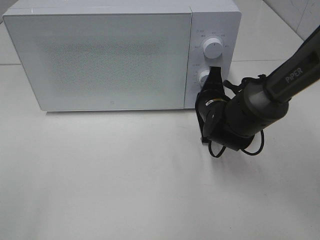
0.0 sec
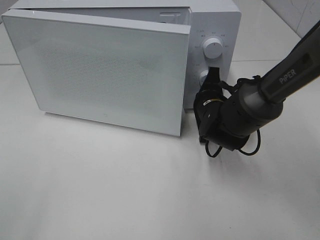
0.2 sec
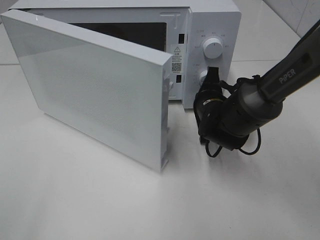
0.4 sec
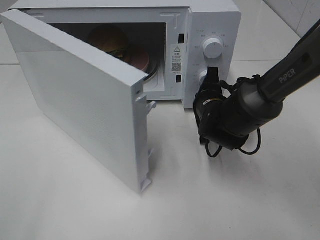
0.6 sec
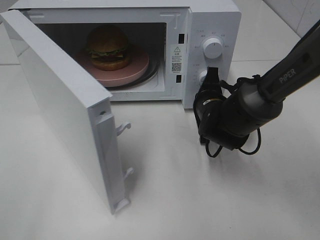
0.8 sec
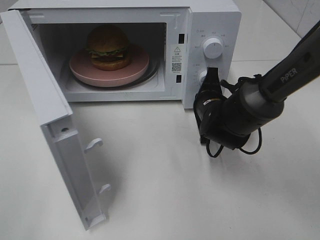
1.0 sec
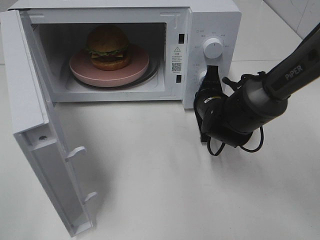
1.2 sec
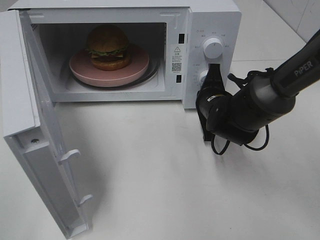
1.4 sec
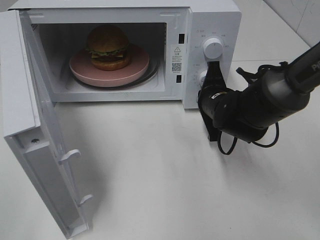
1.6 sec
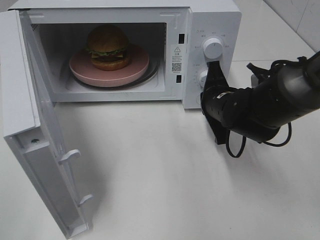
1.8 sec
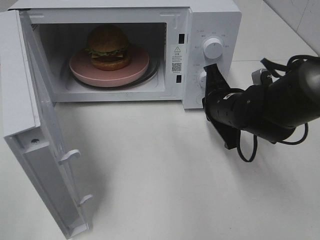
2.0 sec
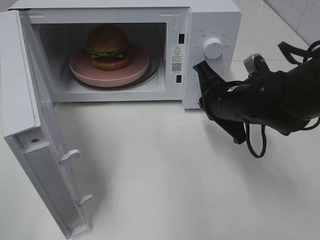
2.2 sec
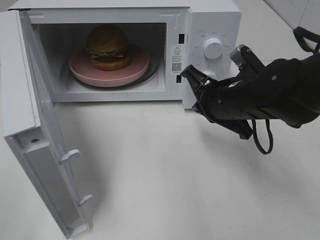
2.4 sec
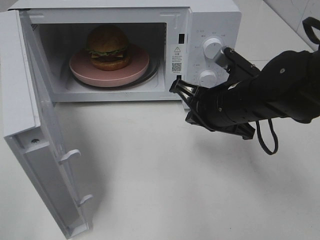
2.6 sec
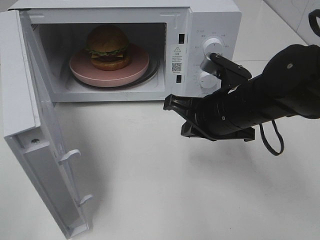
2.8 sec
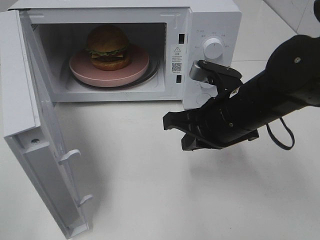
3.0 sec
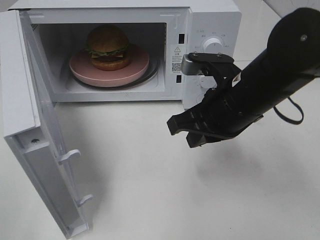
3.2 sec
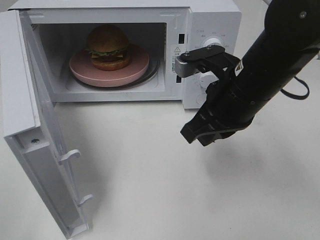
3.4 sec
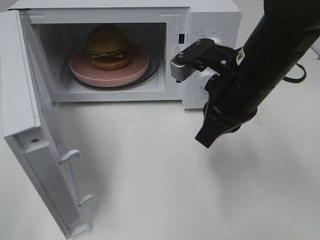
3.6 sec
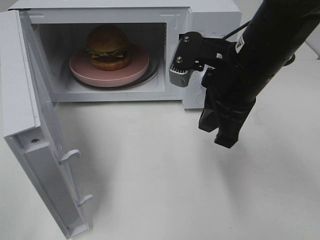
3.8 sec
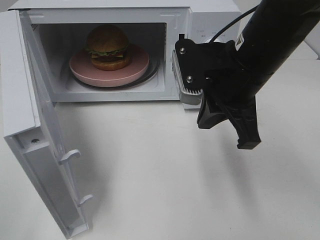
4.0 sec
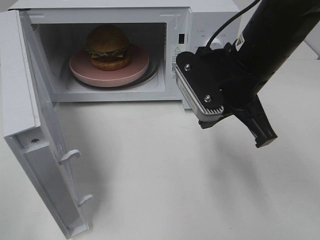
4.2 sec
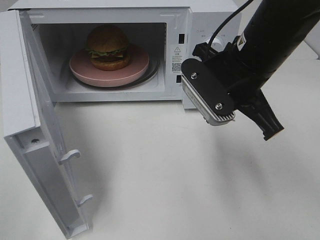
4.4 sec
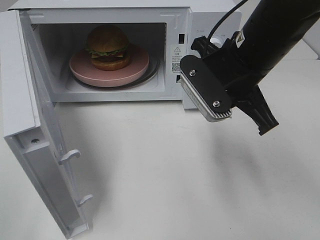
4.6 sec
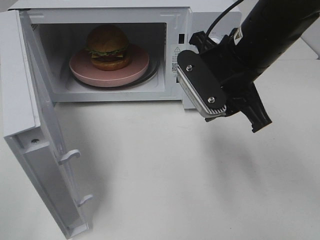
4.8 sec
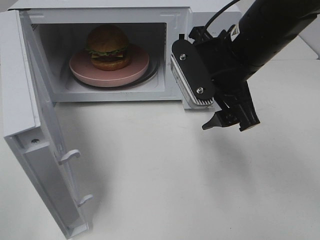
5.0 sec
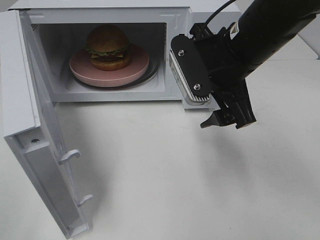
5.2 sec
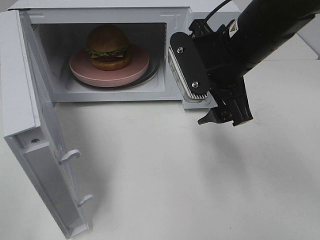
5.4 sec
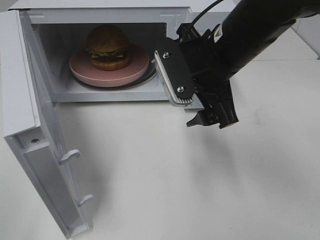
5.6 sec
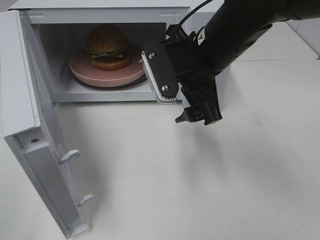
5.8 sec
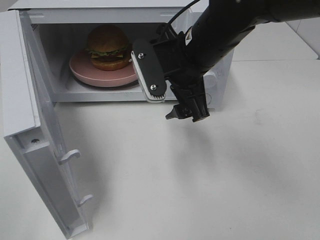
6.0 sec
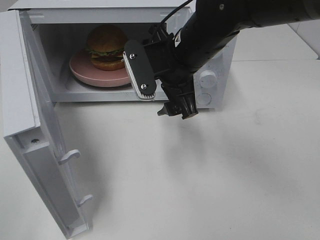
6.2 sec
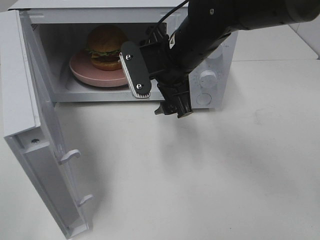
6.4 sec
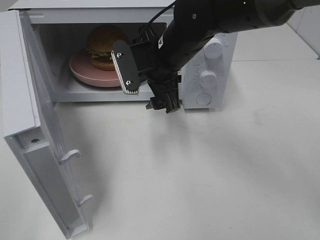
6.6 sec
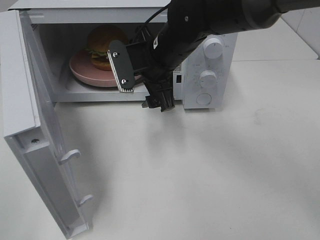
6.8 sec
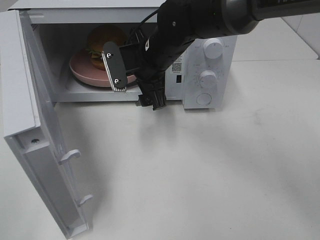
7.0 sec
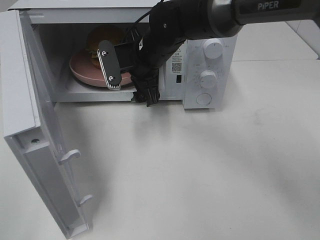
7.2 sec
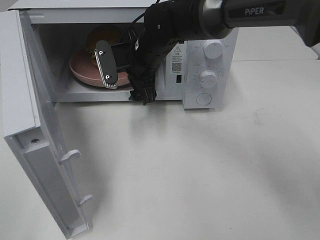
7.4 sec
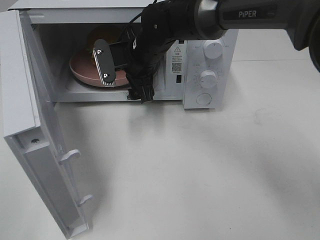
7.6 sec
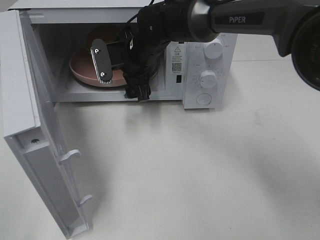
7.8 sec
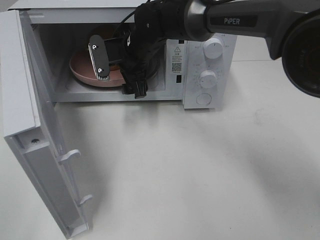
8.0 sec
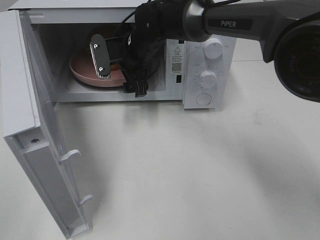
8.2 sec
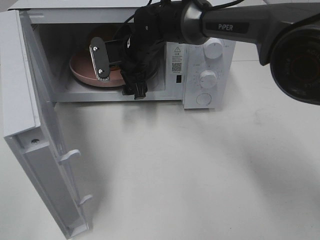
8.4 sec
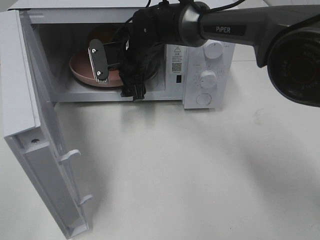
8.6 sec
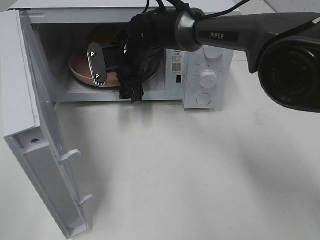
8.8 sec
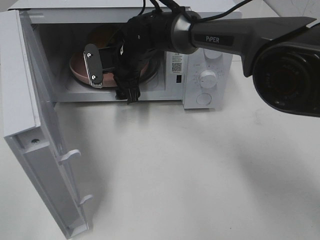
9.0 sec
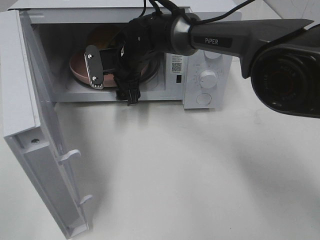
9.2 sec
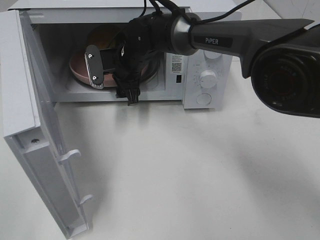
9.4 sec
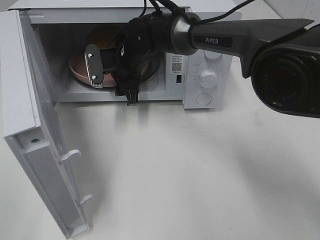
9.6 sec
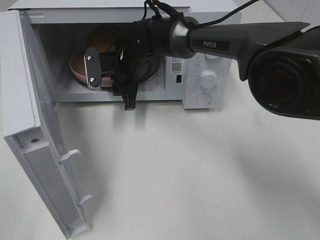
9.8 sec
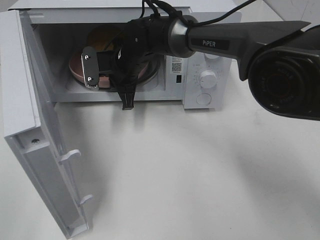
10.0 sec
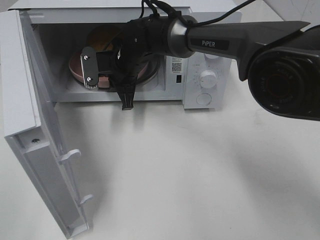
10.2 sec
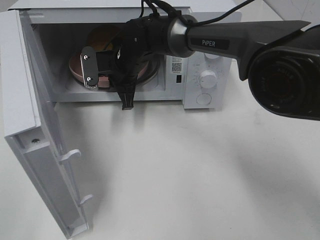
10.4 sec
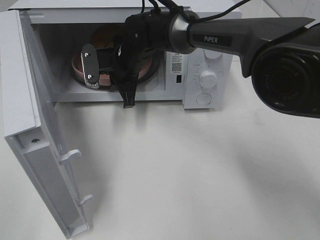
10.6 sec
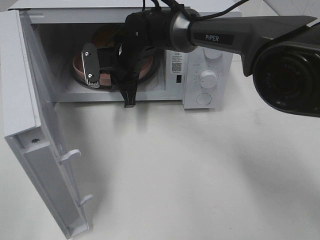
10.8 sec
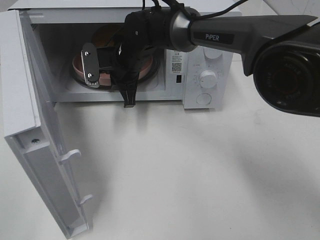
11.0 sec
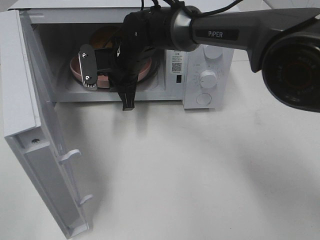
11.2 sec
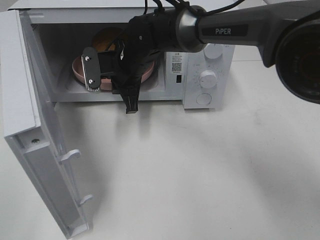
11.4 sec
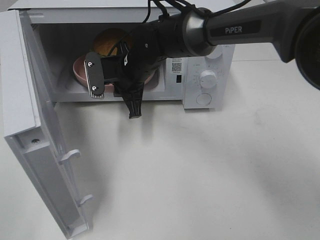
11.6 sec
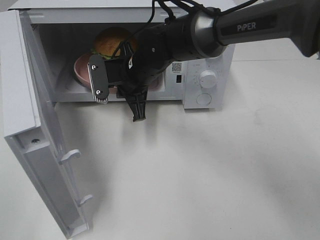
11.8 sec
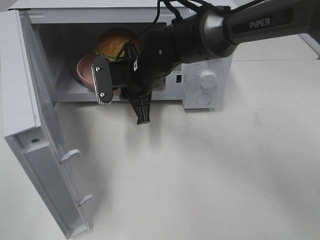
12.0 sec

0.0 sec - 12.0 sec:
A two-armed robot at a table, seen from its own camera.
Task of the whole recording: Heat the burger.
Step, 1.8 sec - 10.0 sec: Right hand: grab the plate with the hamburger.
1.6 sec - 3.0 sec: The right gripper goes roughly 10 cm backward and upward.
3.0 sec - 4.4 sec: The right gripper moves upward, approximately 5 cm.
4.4 sec - 6.0 sec: The right gripper travels to the left by some 5 cm, and opens.
6.0 sec - 7.6 sec: The right gripper shifts roughly 15 cm forward, to the left and downward.
7.6 sec - 9.0 sec: There are only small adjustments of the grippers.
9.0 sec - 10.4 sec: The right gripper closes its fingers.
10.4 sec - 12.0 sec: The right gripper goes some 5 cm backward.

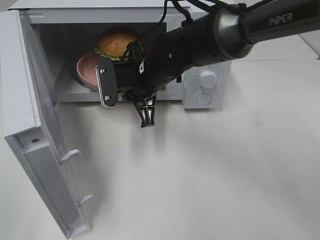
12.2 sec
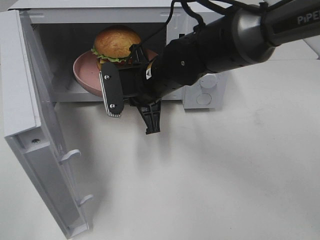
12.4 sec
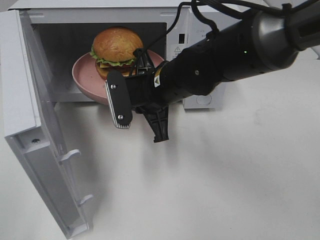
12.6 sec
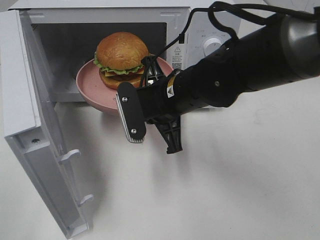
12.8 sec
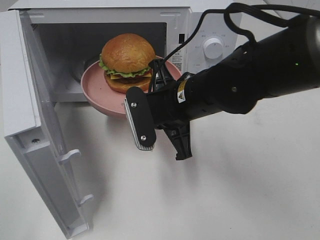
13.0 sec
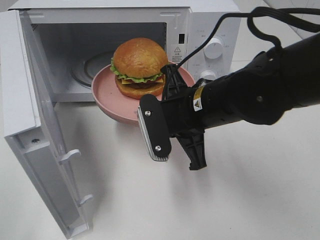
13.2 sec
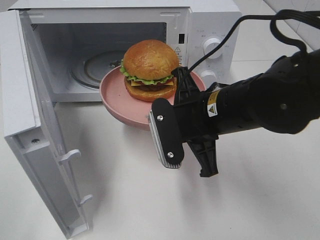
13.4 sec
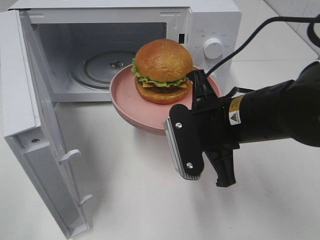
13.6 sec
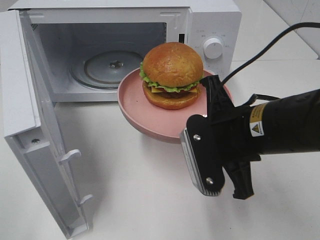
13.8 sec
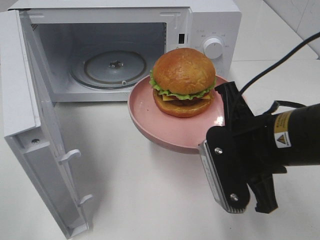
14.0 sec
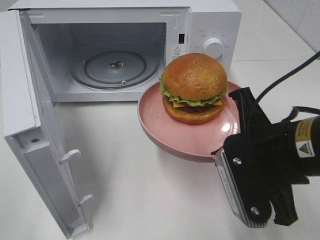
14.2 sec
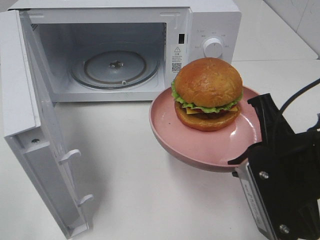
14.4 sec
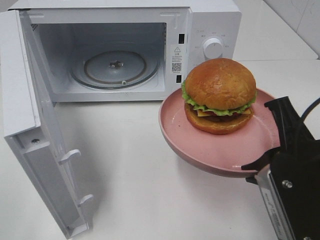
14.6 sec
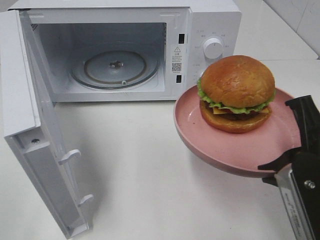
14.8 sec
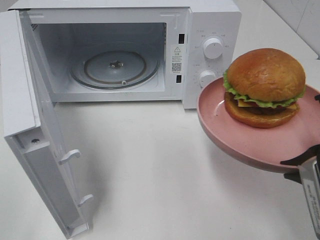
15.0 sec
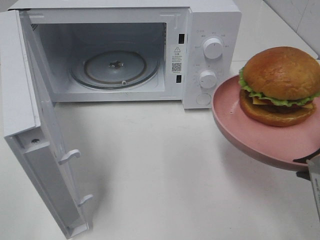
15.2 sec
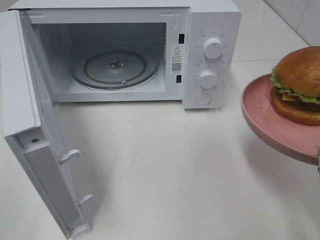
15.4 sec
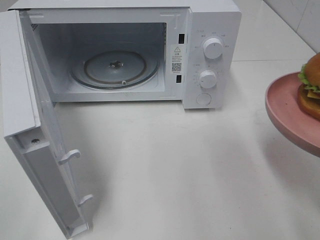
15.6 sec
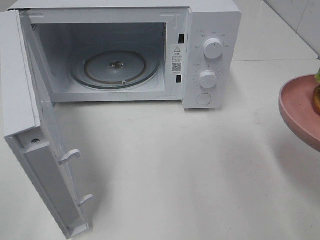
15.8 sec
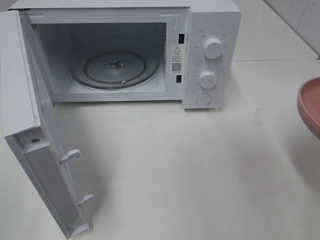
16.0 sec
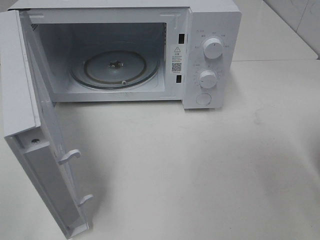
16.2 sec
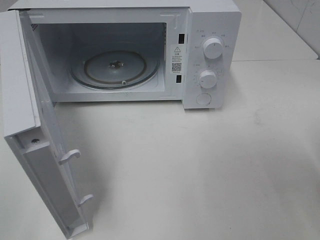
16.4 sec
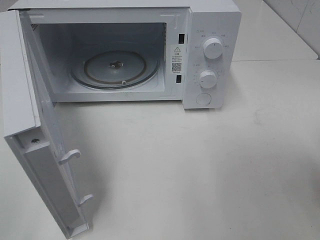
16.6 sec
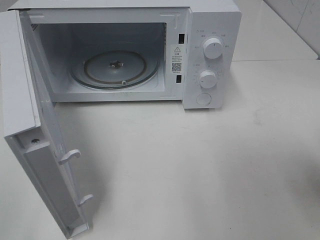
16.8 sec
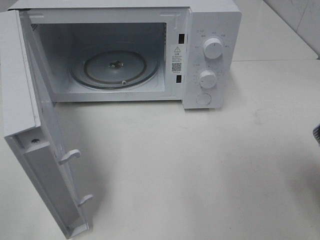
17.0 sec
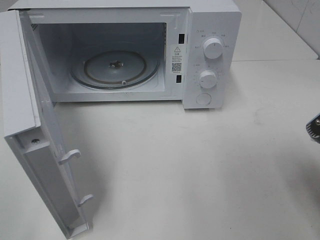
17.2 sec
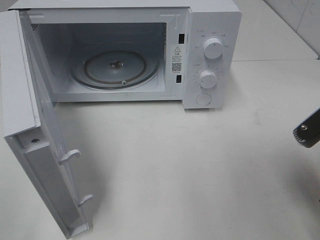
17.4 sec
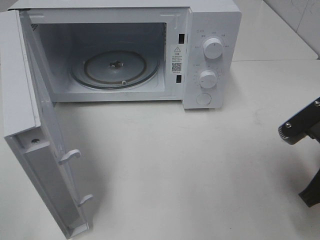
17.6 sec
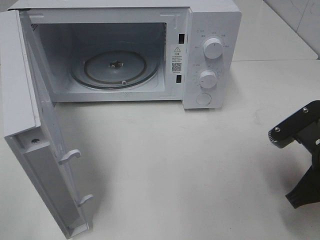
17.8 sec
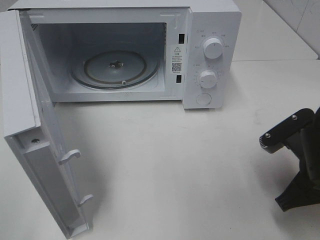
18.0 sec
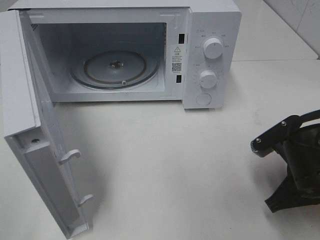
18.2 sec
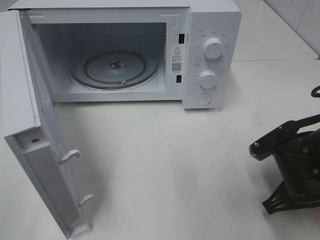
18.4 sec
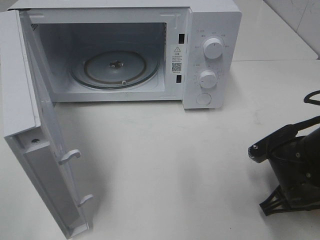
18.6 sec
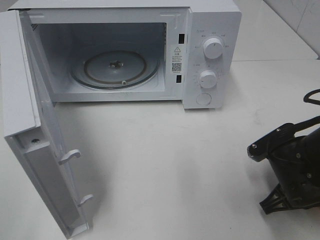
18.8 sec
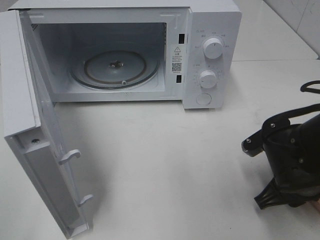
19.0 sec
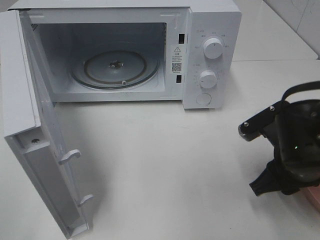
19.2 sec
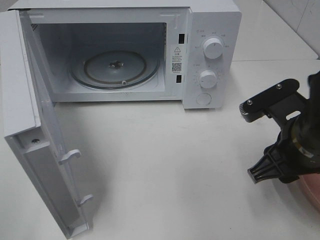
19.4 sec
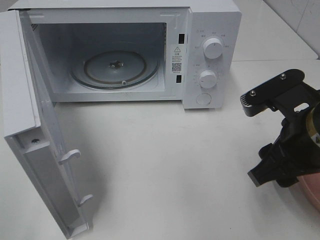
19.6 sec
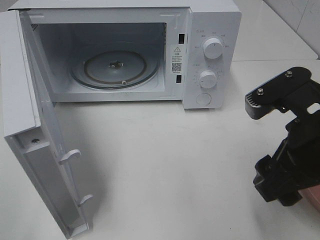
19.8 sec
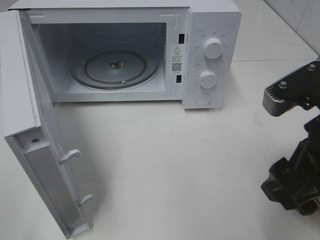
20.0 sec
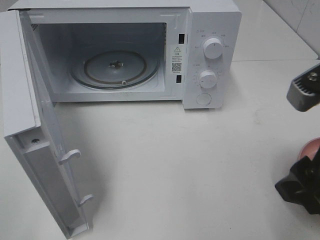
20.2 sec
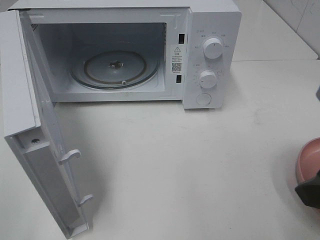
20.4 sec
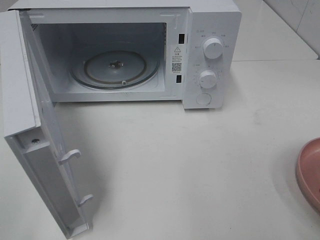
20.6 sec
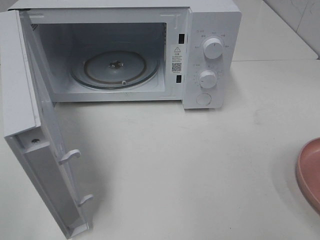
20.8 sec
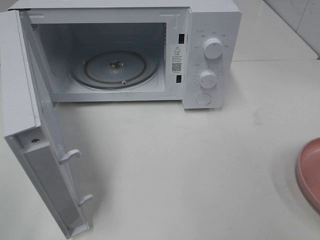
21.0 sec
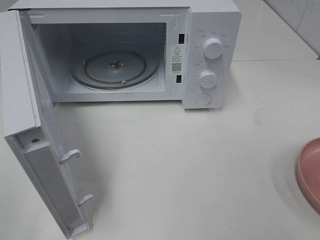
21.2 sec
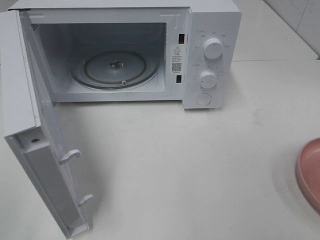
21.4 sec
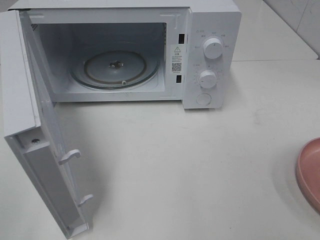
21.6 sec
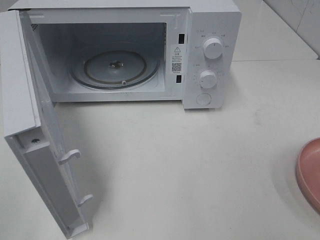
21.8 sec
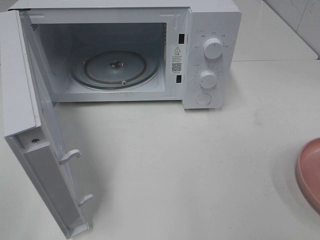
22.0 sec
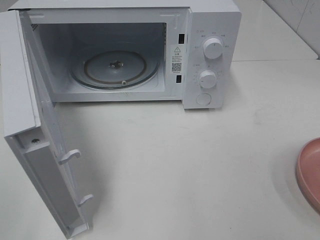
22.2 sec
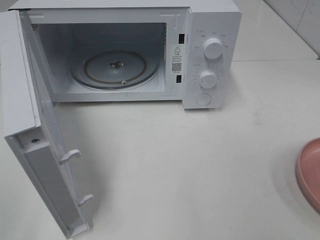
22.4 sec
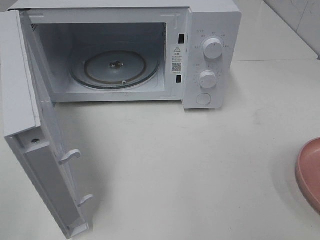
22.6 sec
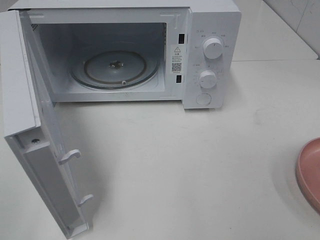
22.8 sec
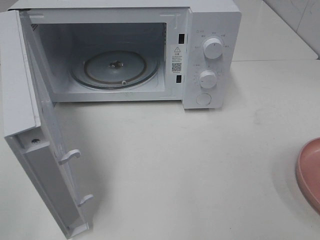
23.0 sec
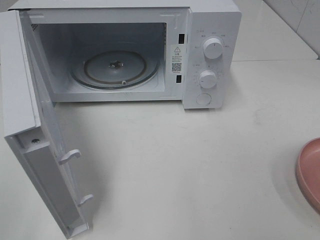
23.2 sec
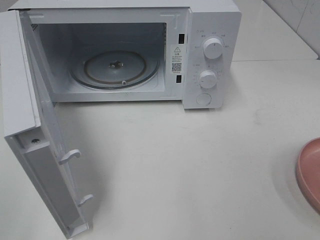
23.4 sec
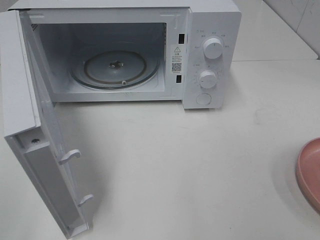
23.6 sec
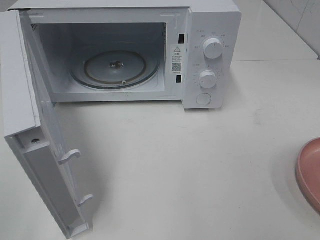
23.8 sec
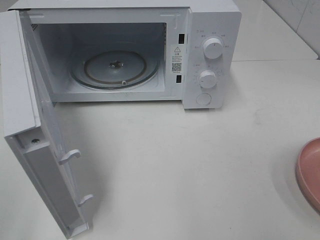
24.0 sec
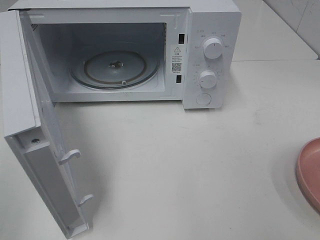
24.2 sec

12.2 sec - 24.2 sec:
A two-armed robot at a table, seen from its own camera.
Task of the whole recording: Heat the burger.
Step, 12.2 sec - 19.0 sec: Right hand: place the plate on the table.
12.2 sec - 13.8 sec: The right gripper travels backward and to the right by some 20 cm.
13.8 sec - 15.2 sec: The right gripper goes approximately 15 cm to the right and backward.
16.6 sec - 18.2 sec: The right gripper goes approximately 15 cm downward, forward and to the left.
18.2 sec - 19.8 sec: The right gripper is displaced upward by roughly 10 cm, and opens.
19.8 sec - 21.2 sec: The right gripper heads backward, to the right and upward, covering approximately 15 cm.
